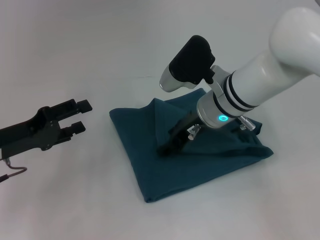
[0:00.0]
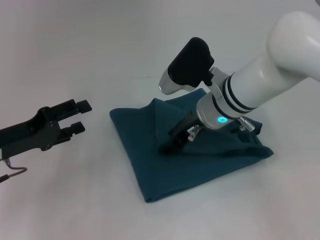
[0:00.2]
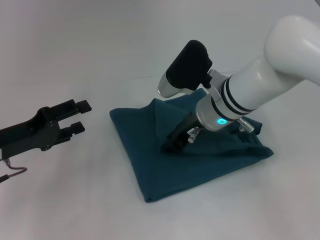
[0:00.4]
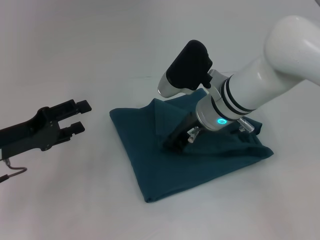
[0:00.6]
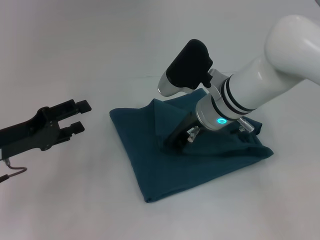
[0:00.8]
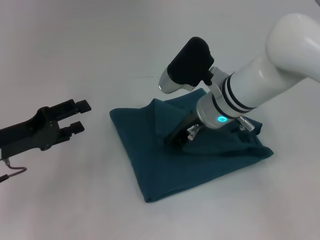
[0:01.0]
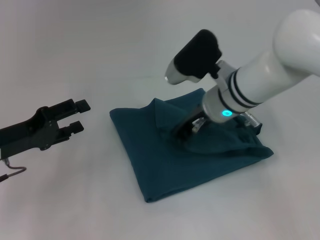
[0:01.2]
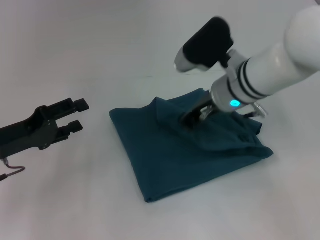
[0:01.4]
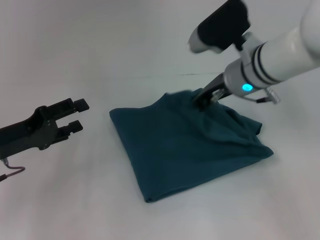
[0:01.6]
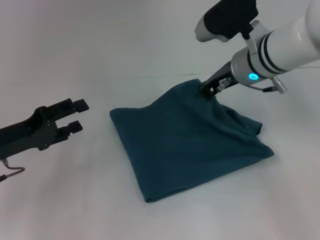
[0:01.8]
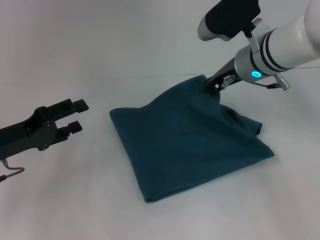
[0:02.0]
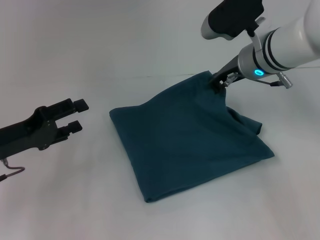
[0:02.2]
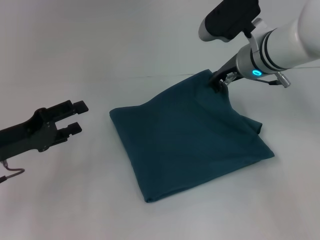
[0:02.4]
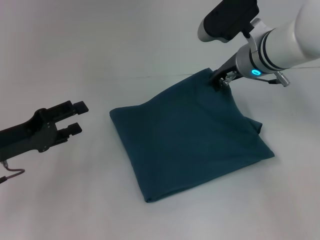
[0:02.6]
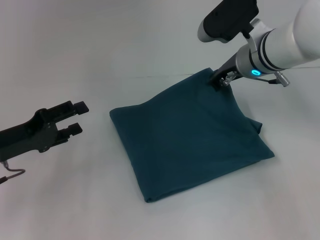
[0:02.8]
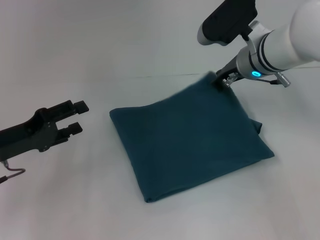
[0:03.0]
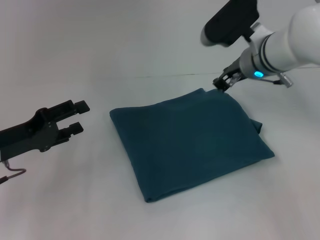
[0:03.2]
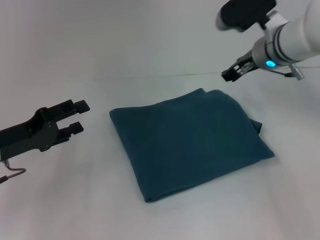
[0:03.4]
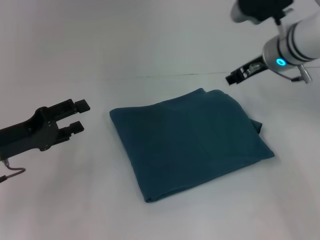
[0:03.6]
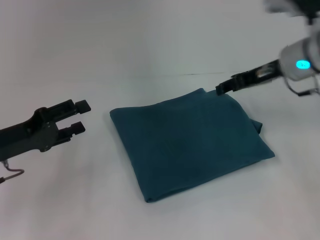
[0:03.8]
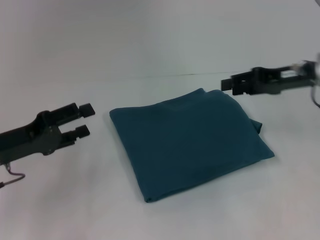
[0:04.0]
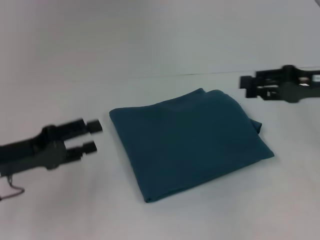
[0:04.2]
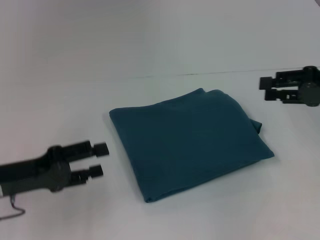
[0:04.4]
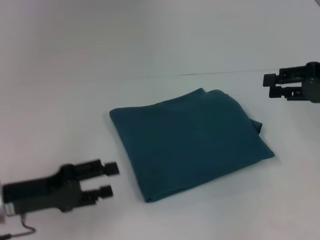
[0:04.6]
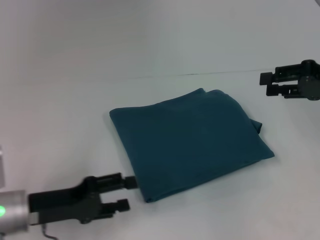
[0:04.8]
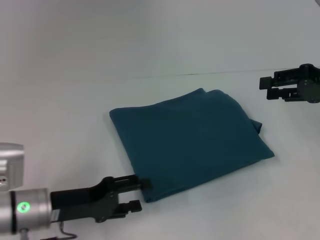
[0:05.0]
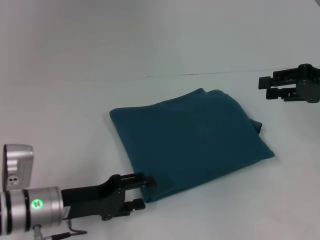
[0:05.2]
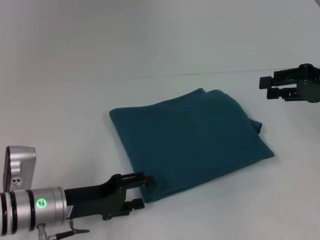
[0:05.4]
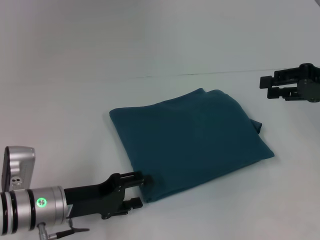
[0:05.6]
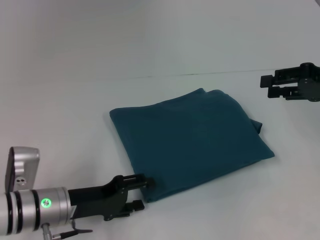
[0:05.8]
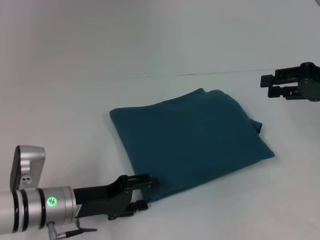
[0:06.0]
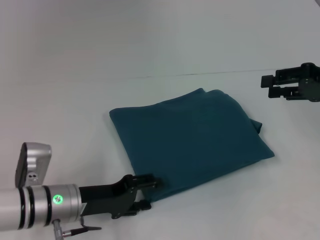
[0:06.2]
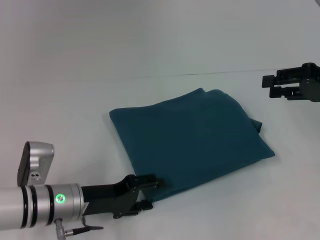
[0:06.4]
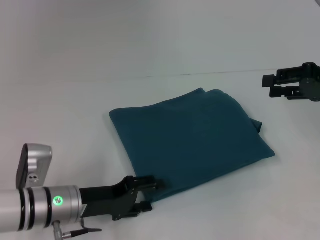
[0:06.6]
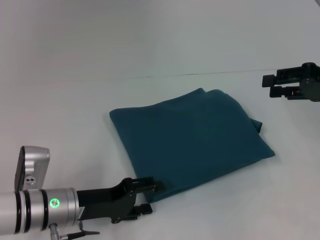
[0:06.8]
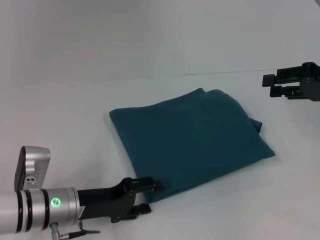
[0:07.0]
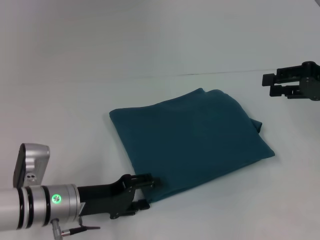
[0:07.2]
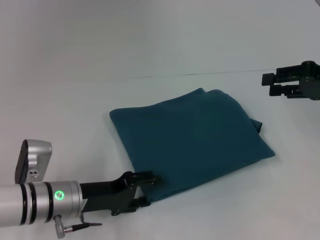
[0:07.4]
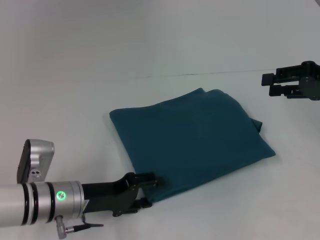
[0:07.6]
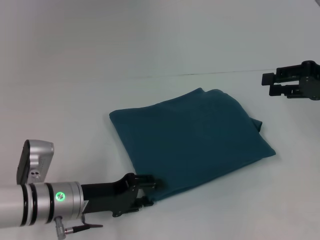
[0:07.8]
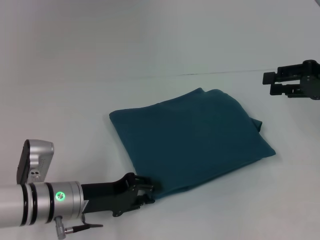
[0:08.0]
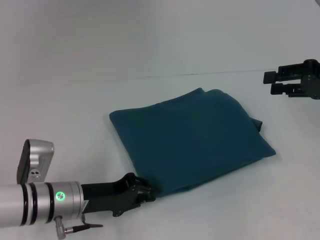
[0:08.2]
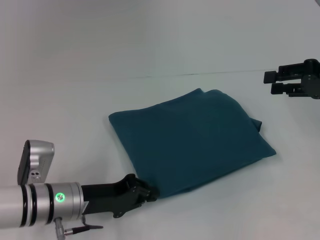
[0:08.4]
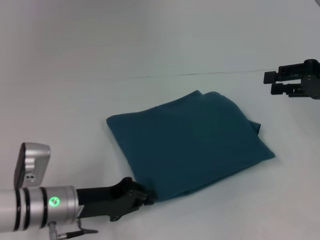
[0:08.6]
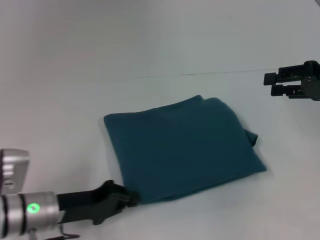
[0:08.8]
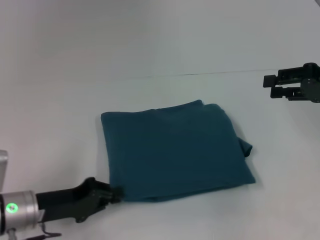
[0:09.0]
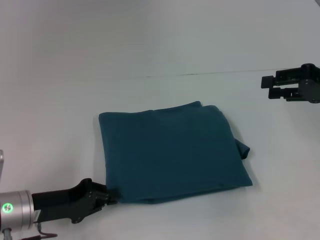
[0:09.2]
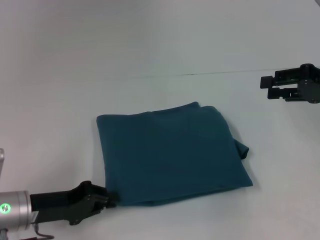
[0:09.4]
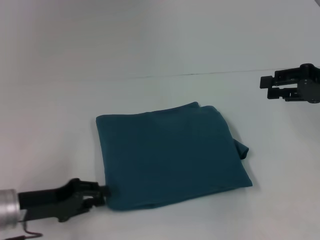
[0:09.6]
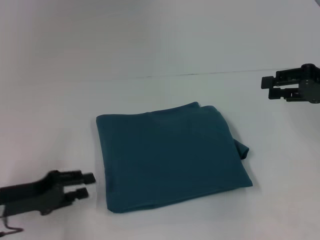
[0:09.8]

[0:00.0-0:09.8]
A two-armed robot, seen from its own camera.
0.0 to 1.4 s: The right gripper closes.
1.4 to 2.8 s: The right gripper shifts by roughly 5 cm.
2.8 to 4.2 s: The right gripper moves to the right and backward, roughly 20 cm, and opens up.
4.2 to 5.6 s: The left gripper is displaced to the right and downward by about 10 cm.
5.6 to 7.0 s: The grippers stay close to where they were, moving slightly.
7.0 to 8.4 s: The left gripper closes.
8.4 to 9.8 s: The left gripper goes about 10 cm to the left.

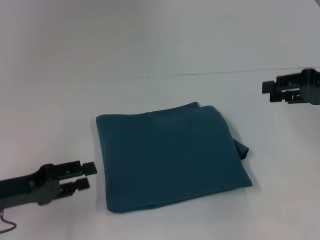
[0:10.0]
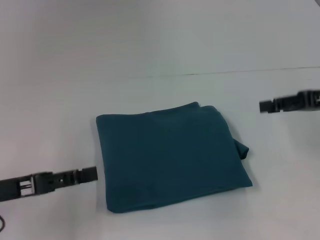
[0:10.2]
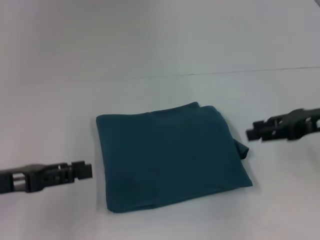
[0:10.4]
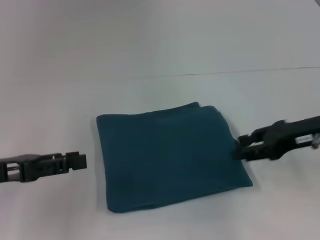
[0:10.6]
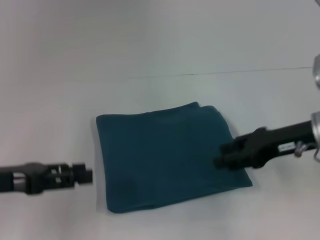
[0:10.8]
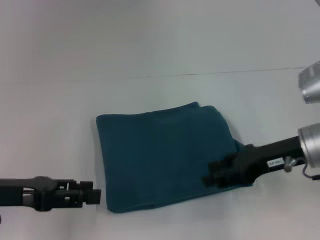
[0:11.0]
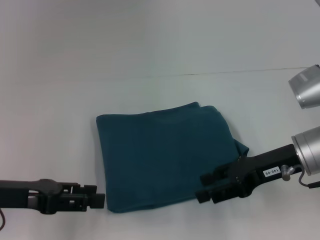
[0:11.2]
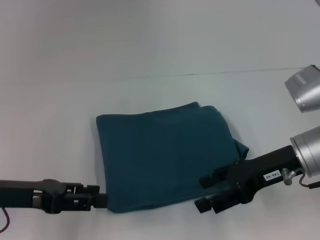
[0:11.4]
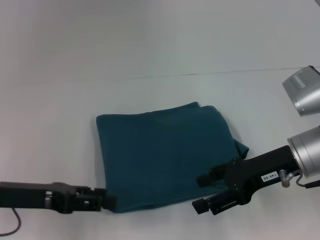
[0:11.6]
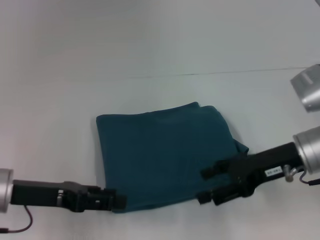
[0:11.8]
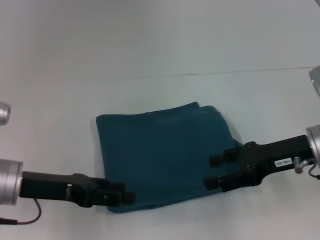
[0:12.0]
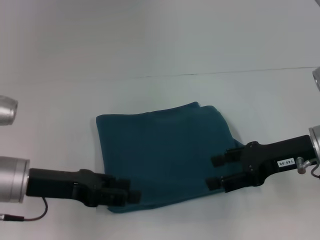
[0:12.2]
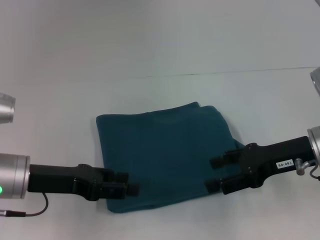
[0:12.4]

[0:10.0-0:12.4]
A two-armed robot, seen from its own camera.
10.0 to 11.2 s: The right gripper is displaced to the left and downward by roughly 15 cm.
11.2 to 12.4 s: The left gripper shifts by about 5 cm.

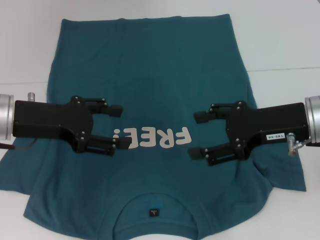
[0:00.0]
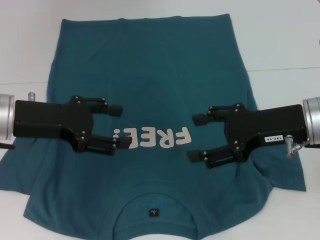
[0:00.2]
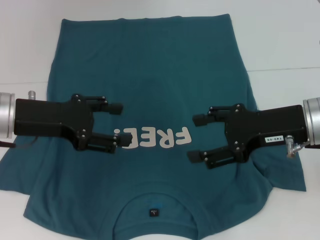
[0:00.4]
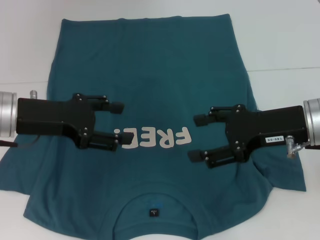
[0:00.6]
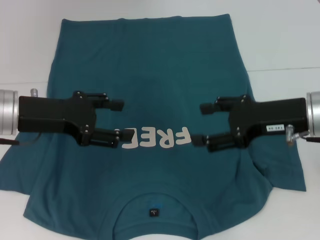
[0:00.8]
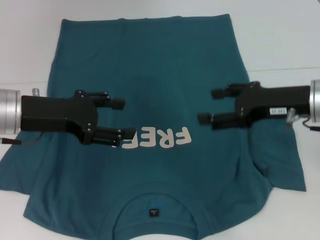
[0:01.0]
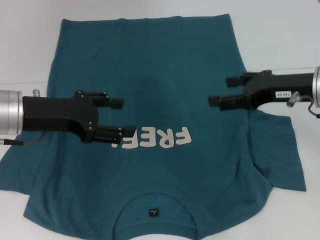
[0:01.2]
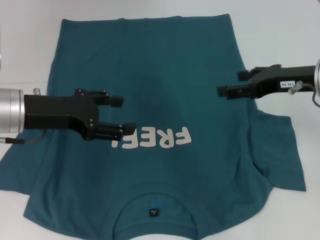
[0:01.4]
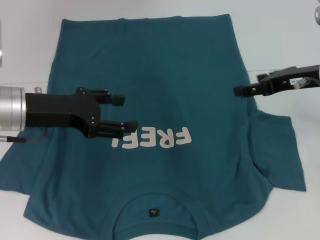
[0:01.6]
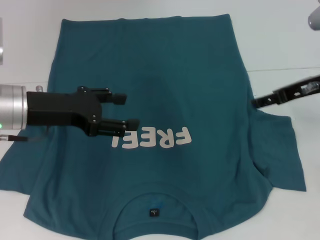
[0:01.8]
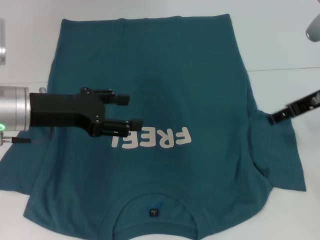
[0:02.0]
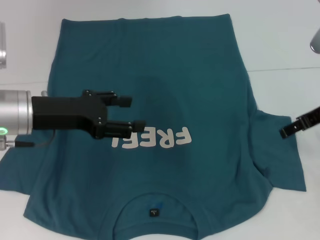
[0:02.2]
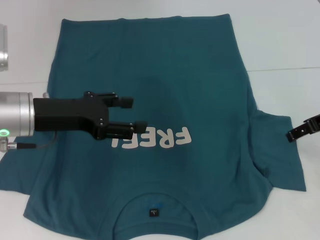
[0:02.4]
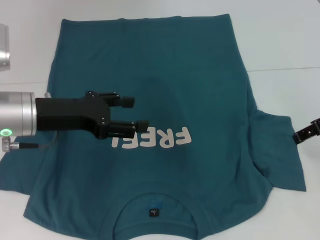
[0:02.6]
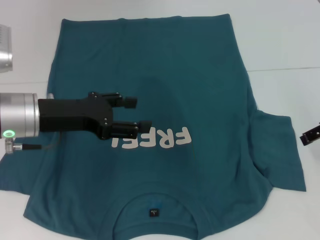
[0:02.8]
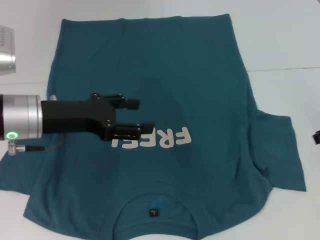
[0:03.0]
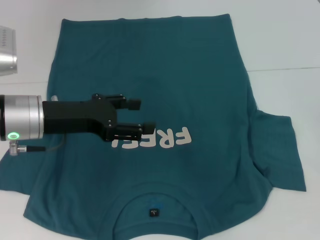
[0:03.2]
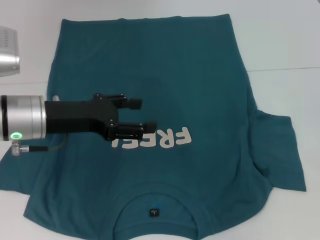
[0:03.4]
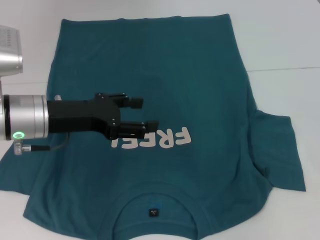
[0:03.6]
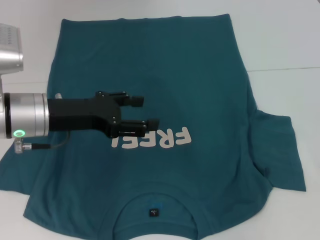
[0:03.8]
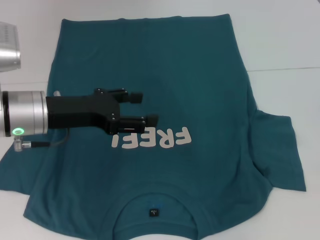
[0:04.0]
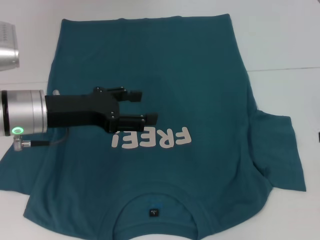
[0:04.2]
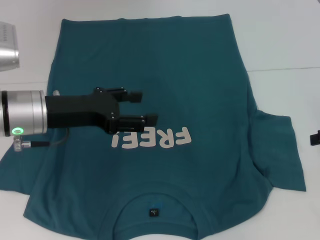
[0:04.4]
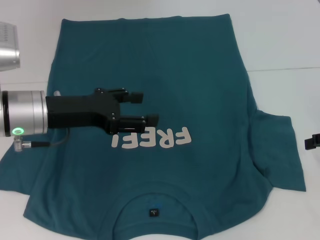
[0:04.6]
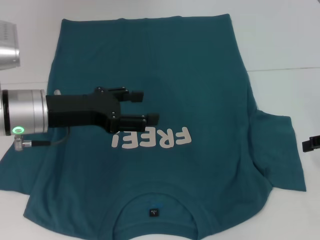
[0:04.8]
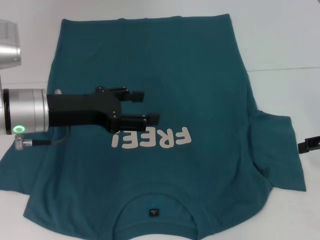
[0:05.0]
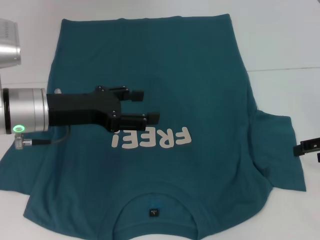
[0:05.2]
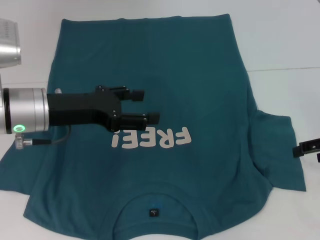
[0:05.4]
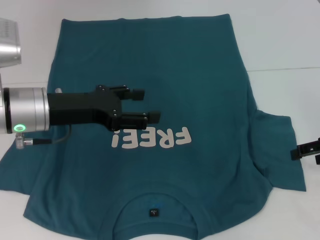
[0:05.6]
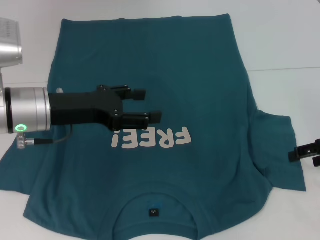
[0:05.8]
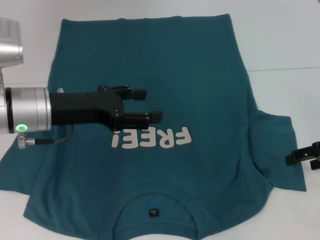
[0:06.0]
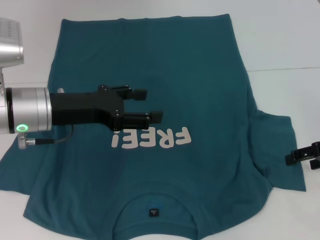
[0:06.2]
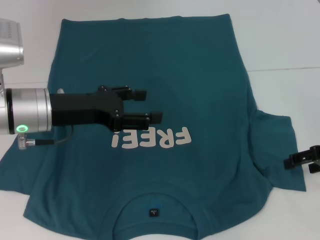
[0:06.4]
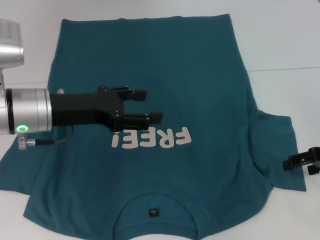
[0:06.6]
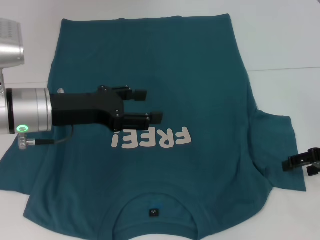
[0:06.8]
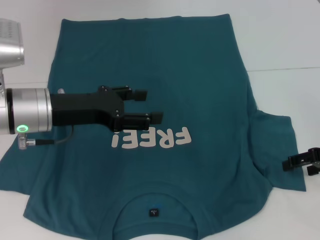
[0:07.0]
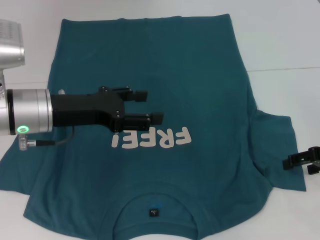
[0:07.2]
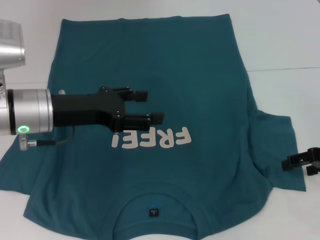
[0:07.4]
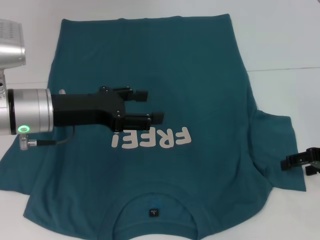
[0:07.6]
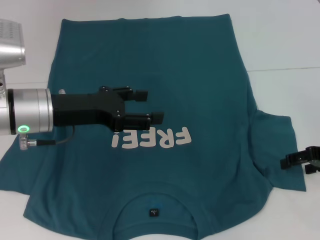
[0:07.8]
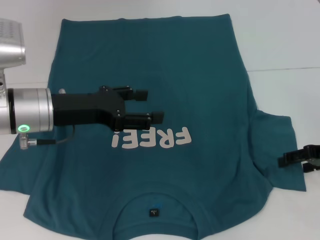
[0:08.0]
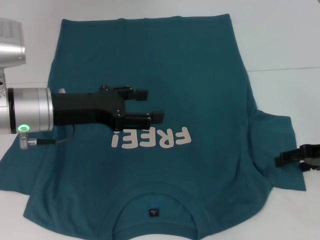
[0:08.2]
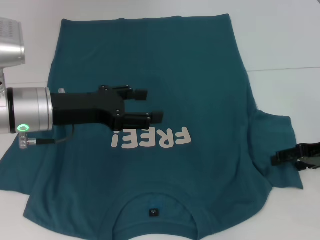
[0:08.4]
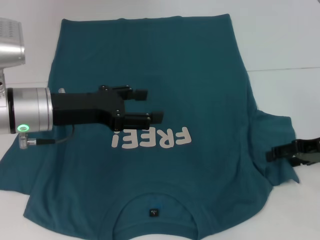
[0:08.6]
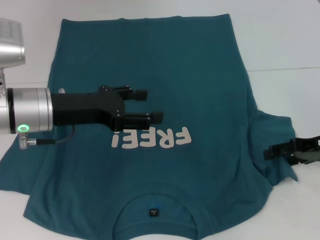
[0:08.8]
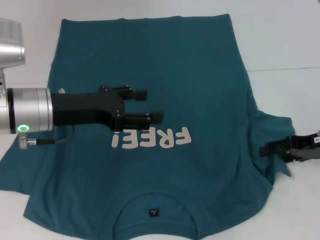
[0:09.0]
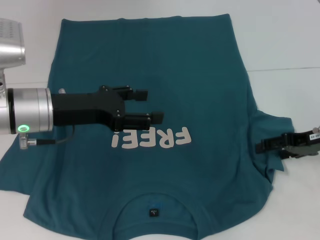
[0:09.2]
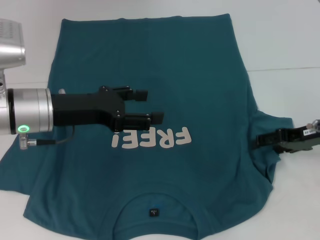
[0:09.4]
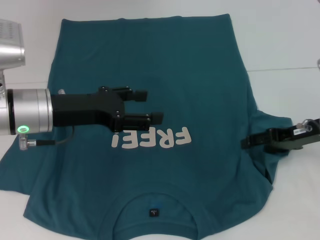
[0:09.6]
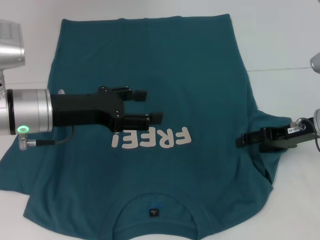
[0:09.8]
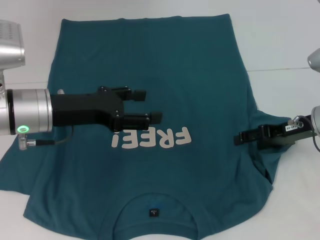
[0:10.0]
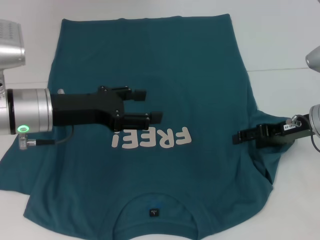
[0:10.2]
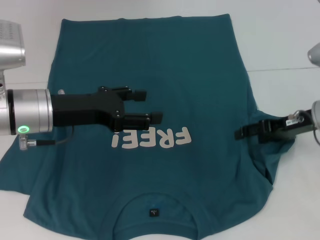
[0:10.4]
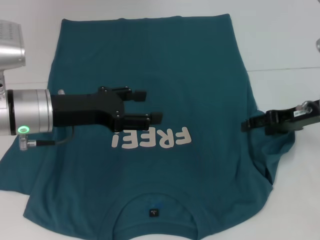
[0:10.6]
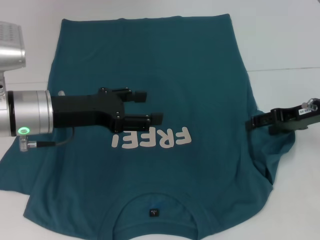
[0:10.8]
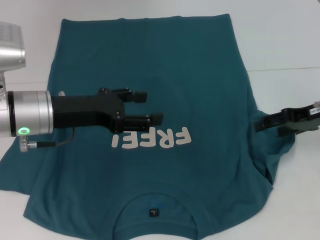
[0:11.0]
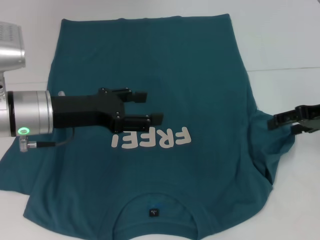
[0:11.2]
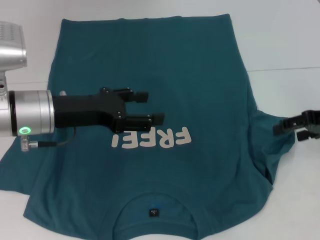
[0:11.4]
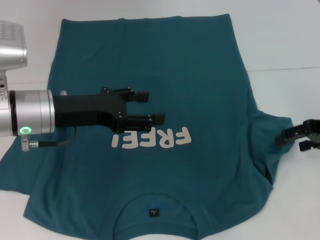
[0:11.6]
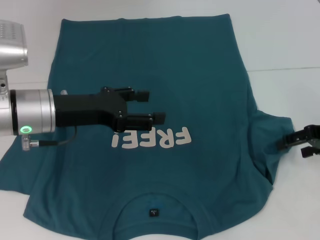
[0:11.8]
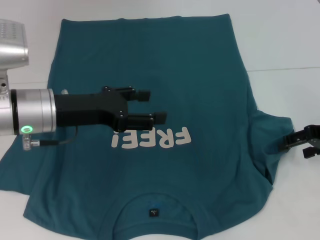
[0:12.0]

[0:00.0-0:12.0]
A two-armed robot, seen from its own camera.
0.0 to 1.6 s: The right gripper travels forward by some 5 cm.
1.6 to 3.0 s: The right gripper heads to the right, covering some 5 cm.
3.0 to 4.4 s: The right gripper ends up roughly 5 cm from where it was.
4.4 to 6.0 s: The grippers stay close to where they were, moving slightly.
6.0 to 9.0 s: The grippers move only a little.
9.0 to 10.4 s: The grippers stay close to where they were, moving slightly.
10.4 to 12.0 s: The right gripper is displaced to the right by about 5 cm.
